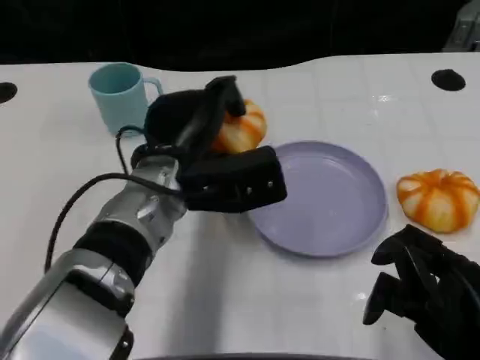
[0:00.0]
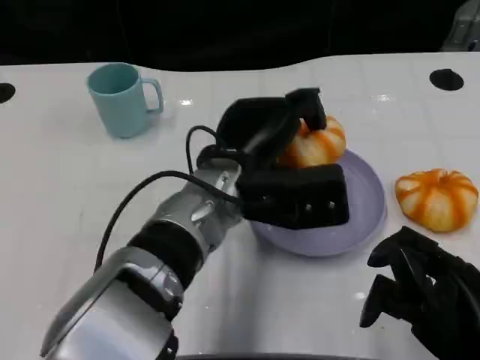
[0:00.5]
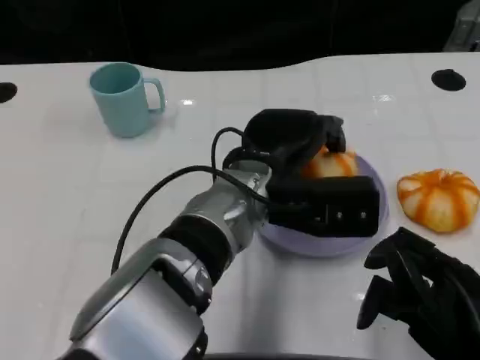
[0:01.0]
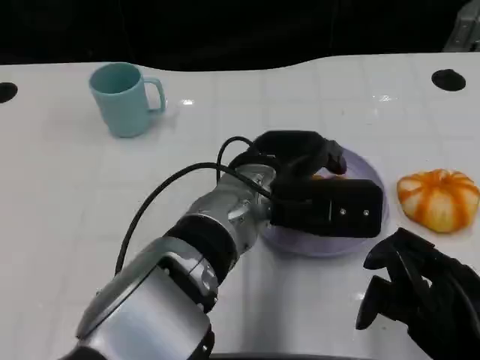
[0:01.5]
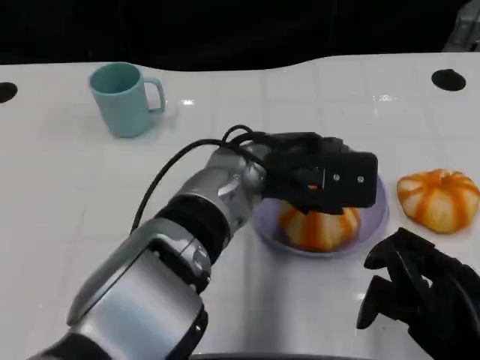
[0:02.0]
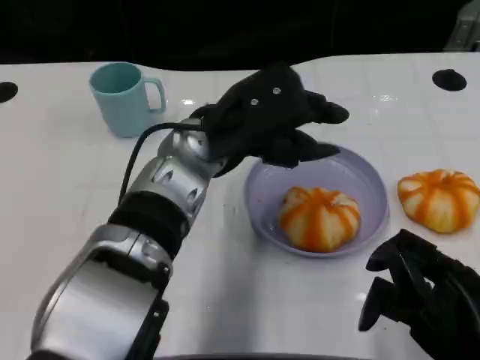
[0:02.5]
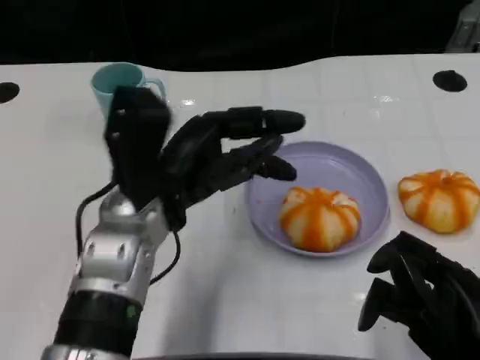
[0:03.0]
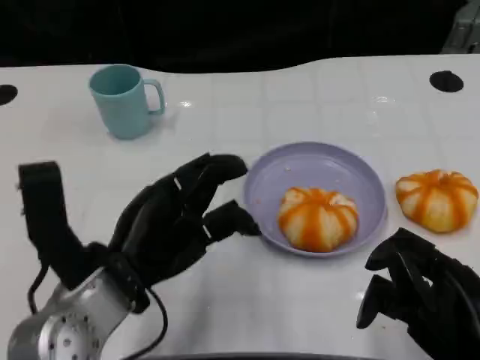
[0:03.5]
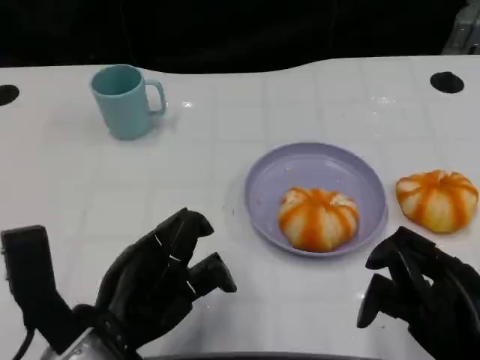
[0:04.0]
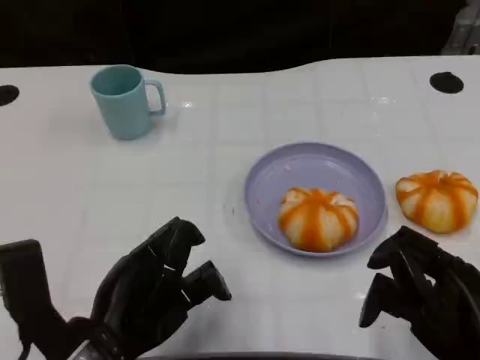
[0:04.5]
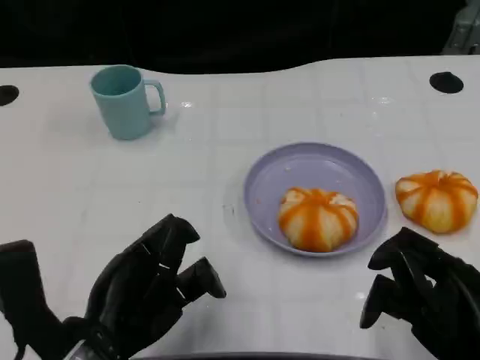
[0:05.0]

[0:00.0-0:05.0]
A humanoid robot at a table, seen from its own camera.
Task of the whole recording: Grasp the bread from the table and place it into the plate.
0:00.0 to 0:02.5: The left hand reaches some 10 cm to the right, then returns.
0:02.5 to 0:05.0: The left hand moves backward, to the left and downward, some 20 cm.

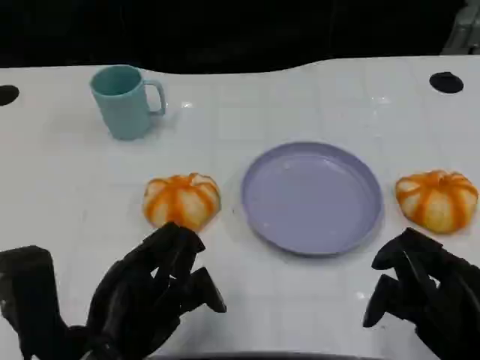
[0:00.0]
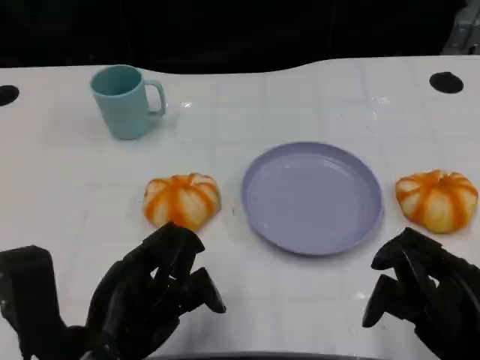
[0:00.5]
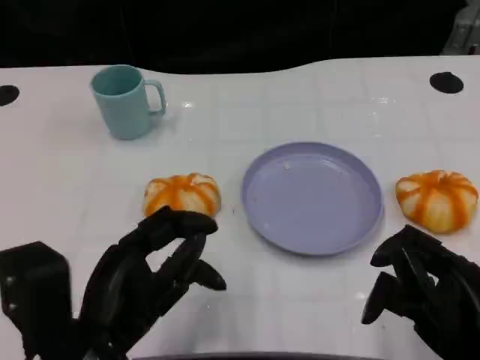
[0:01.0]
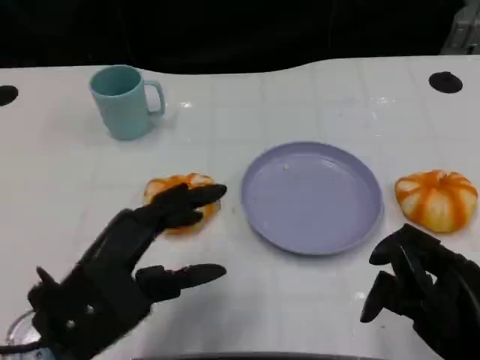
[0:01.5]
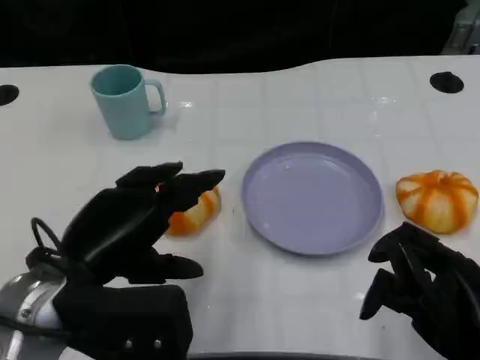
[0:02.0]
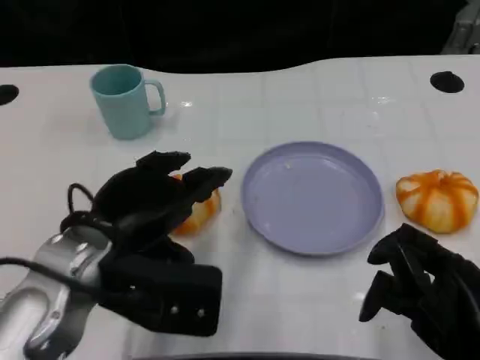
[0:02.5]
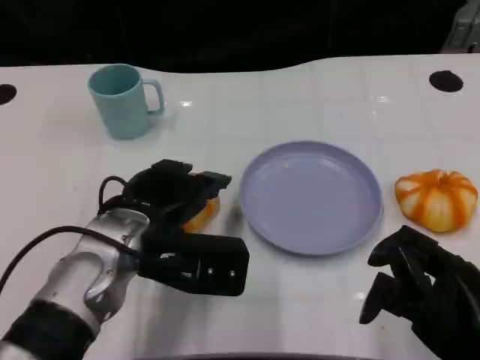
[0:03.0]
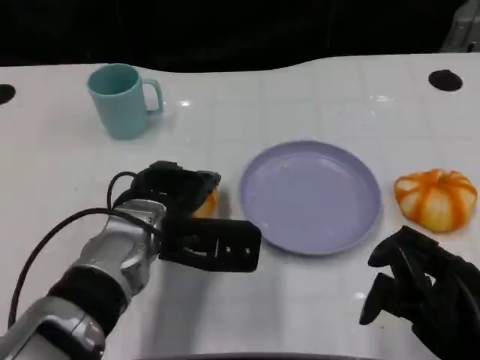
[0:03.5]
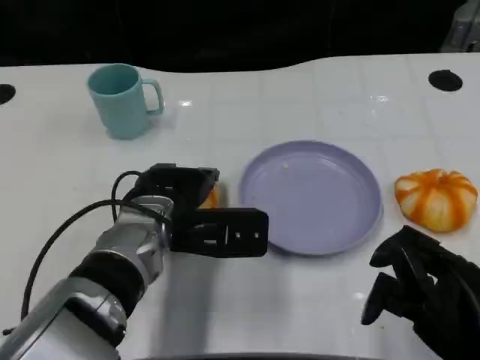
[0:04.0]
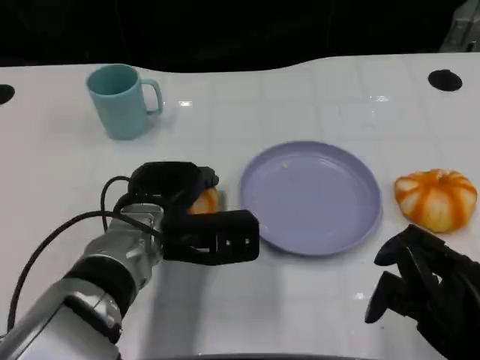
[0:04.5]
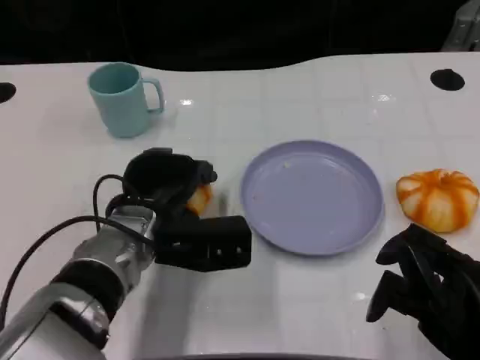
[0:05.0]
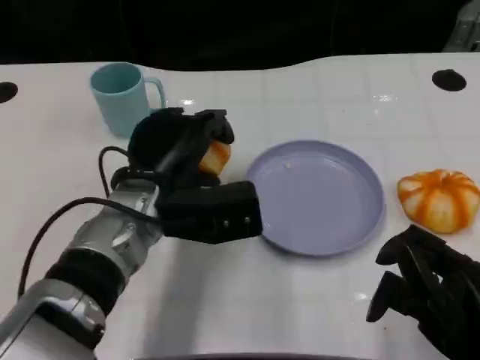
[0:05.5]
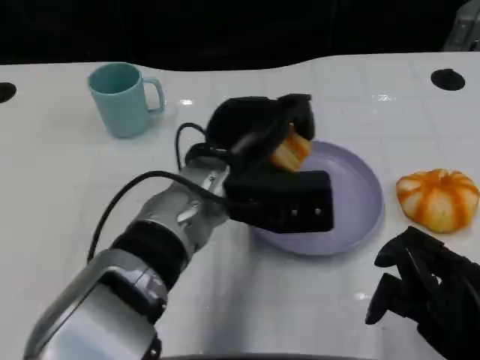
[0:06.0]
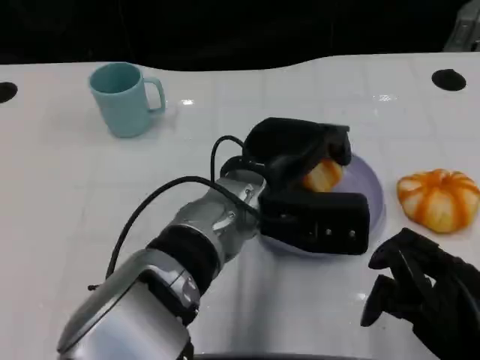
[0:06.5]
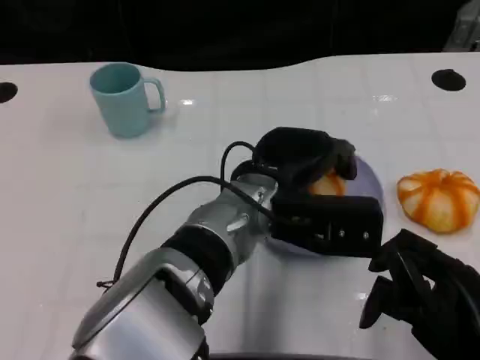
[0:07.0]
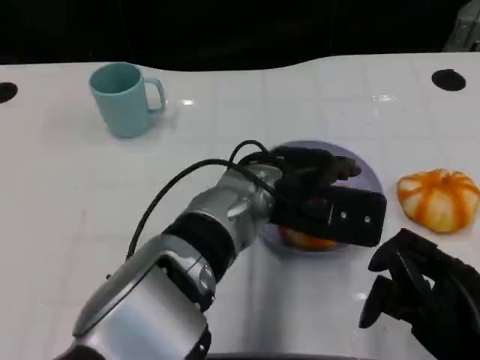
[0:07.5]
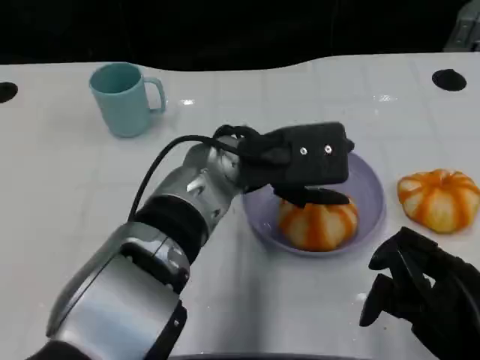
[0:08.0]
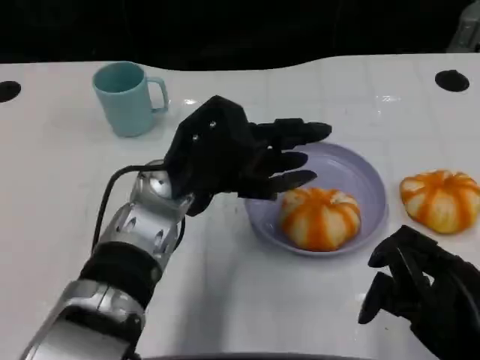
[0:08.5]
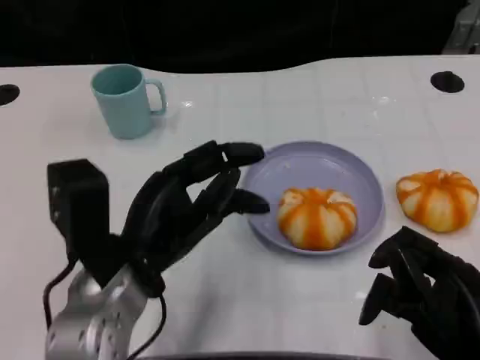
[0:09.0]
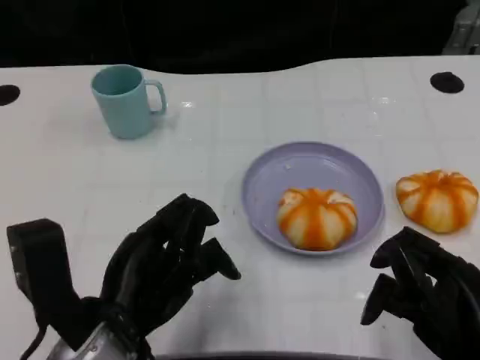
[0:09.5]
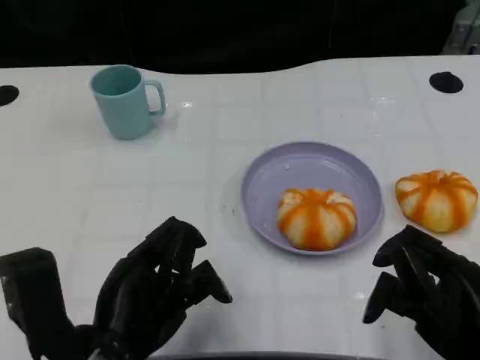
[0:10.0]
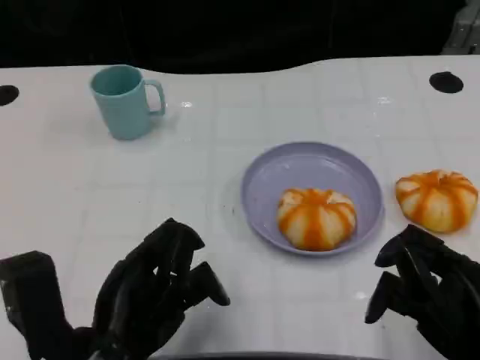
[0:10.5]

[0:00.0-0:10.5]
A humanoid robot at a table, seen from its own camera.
Task of the whole recording: Grasp the bread from the table and place it into the plate.
0:00.0 to 0:02.0: The left hand changes place by some 5 cm.
0:02.0 to 0:04.0: The left hand is displaced forward, to the right and downward by approximately 15 cm.
0:04.0 to 0:06.5: The left hand goes roughly 10 cm to the right.
0:06.5 to 0:08.5: The left hand travels to the left by approximately 10 cm.
0:08.5 to 0:10.5: The left hand shifts roughly 15 cm backward and to the left.

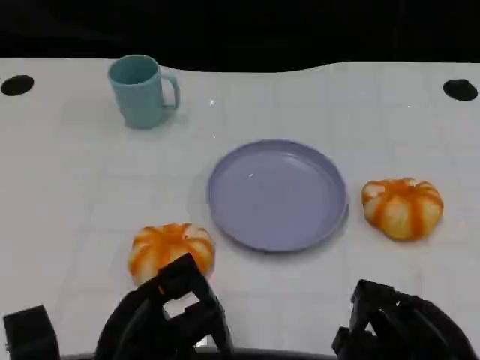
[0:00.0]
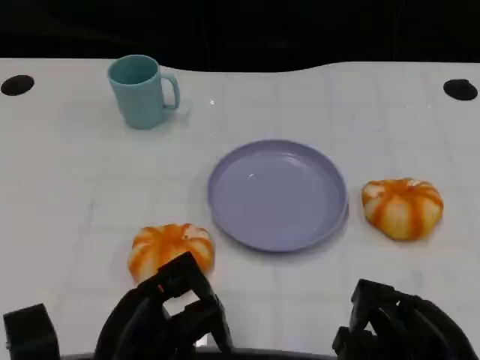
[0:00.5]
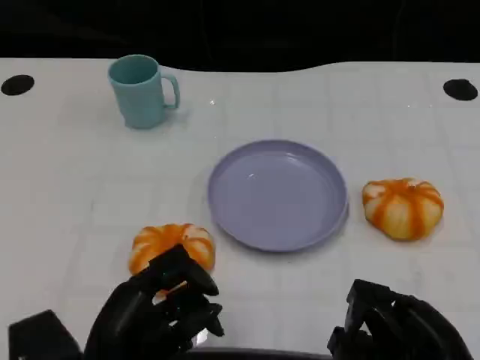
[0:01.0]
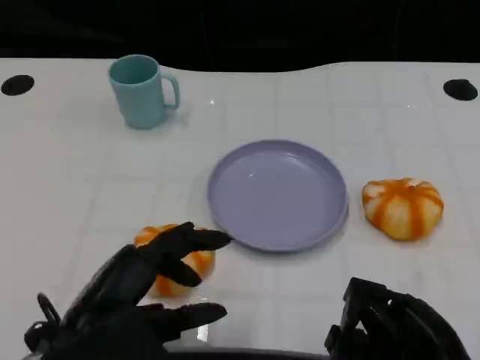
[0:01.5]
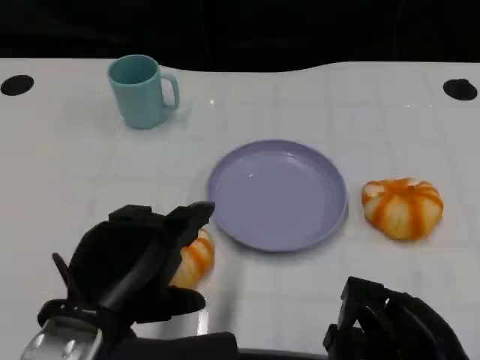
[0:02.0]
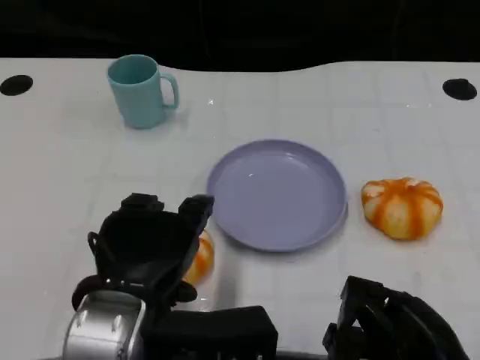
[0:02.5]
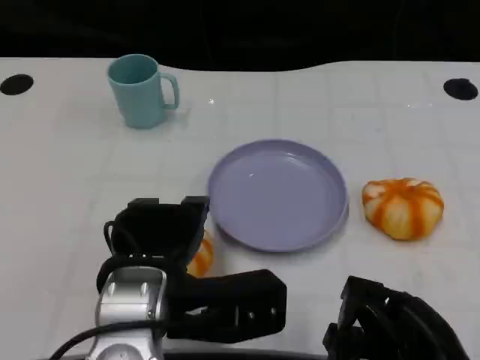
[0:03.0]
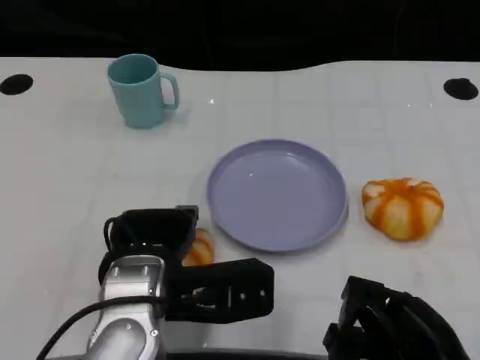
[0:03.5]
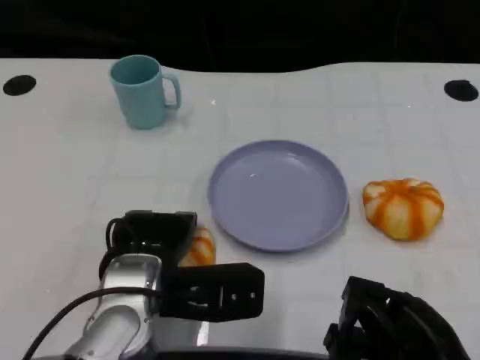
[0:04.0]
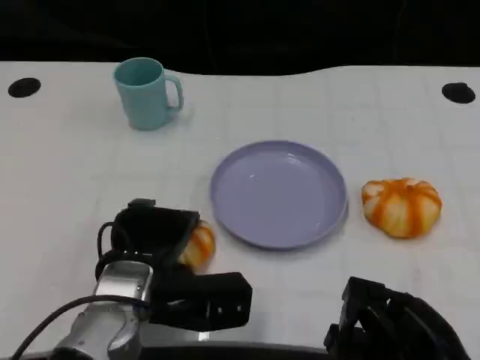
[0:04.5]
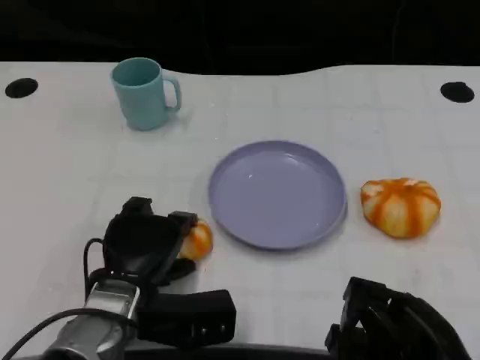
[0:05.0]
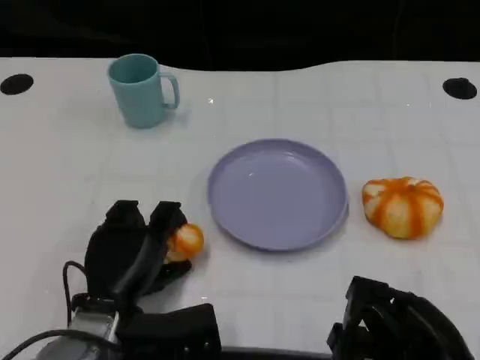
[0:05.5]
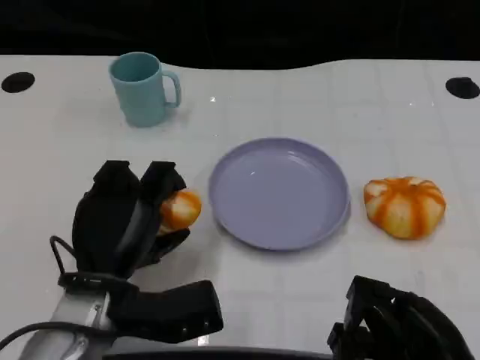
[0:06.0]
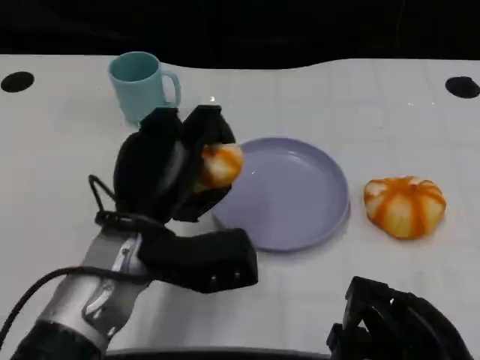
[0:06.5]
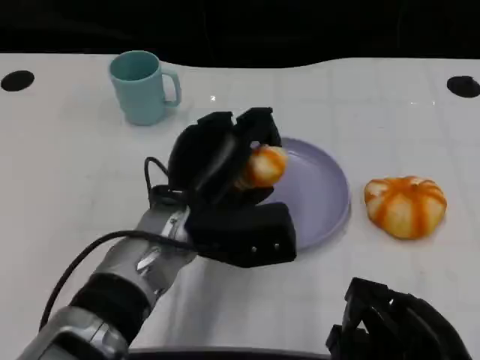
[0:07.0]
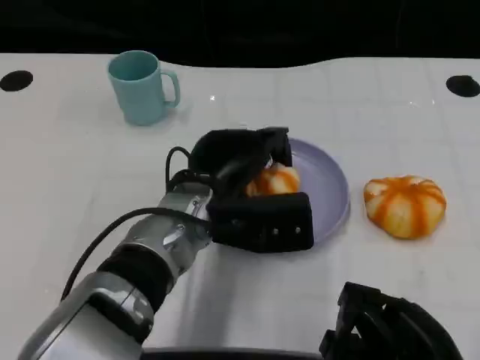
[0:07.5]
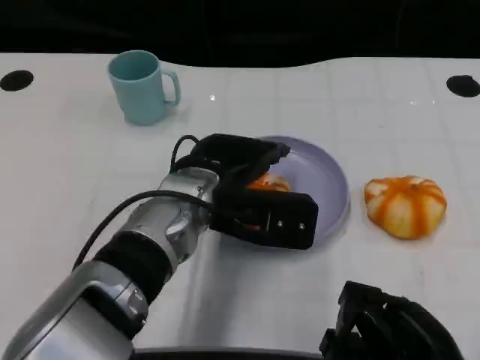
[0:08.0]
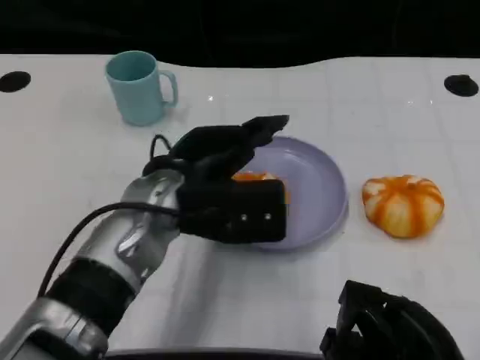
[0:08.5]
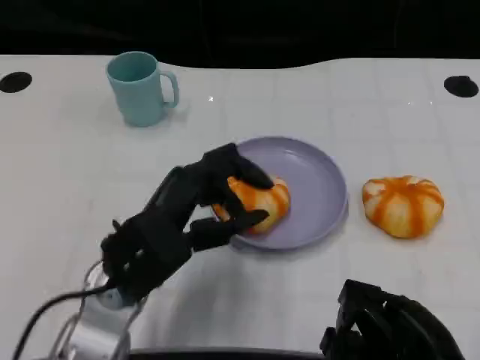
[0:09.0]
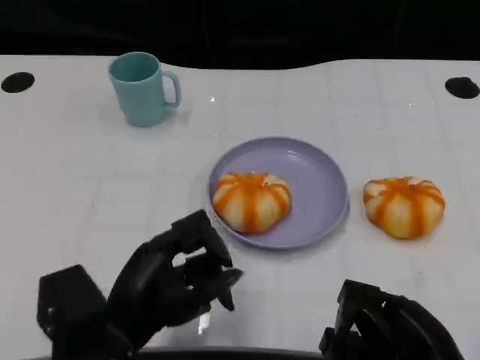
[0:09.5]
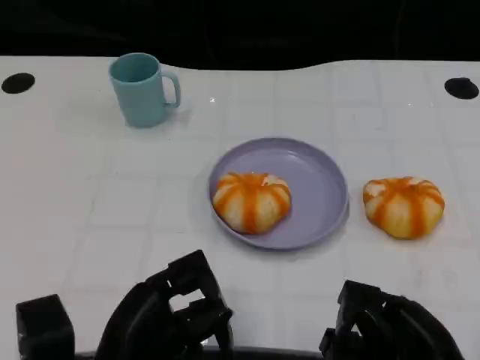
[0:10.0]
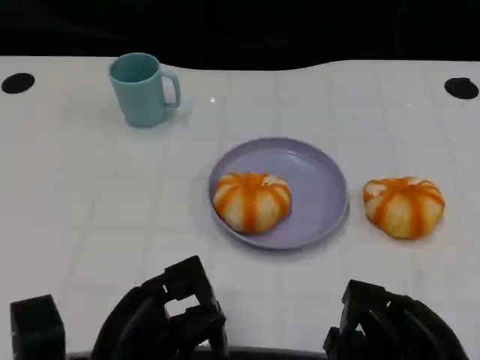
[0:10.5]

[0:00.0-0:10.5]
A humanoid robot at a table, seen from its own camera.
Task of the whole recording: Grasp the bread from the table and place it into the plate.
0:00.0 to 0:02.0: The left hand goes about 10 cm upward.
0:02.0 to 0:04.0: The left hand goes some 10 cm forward and downward.
0:04.0 to 0:06.5: The left hand goes downward and returns, approximately 5 cm each way.
0:08.5 to 0:10.5: The left hand is displaced backward, downward and to the left by some 20 cm.
